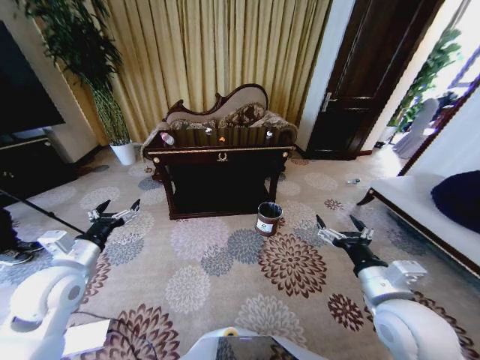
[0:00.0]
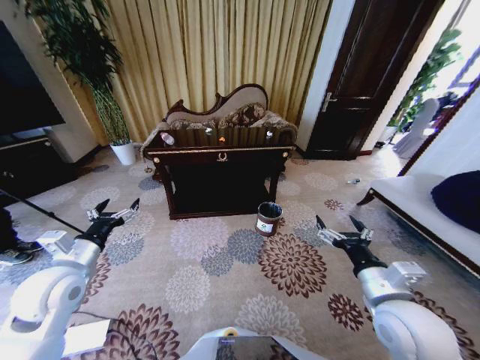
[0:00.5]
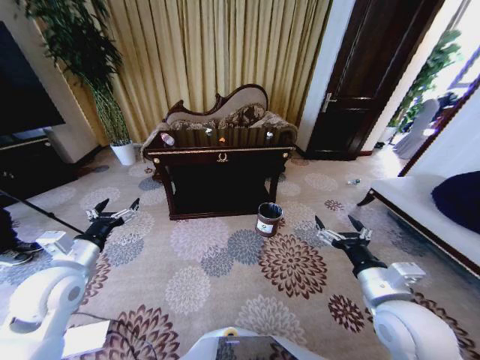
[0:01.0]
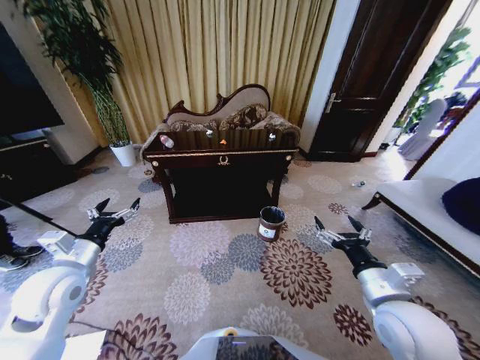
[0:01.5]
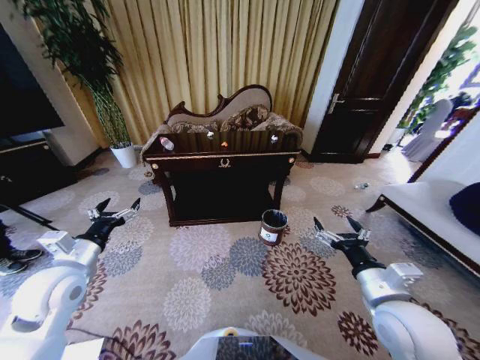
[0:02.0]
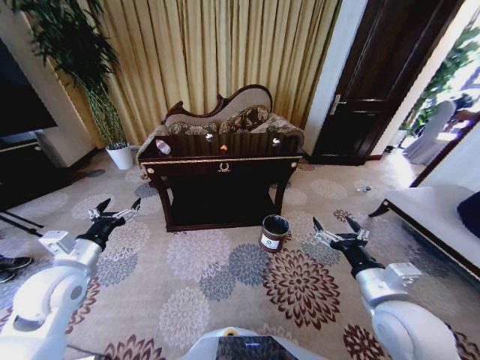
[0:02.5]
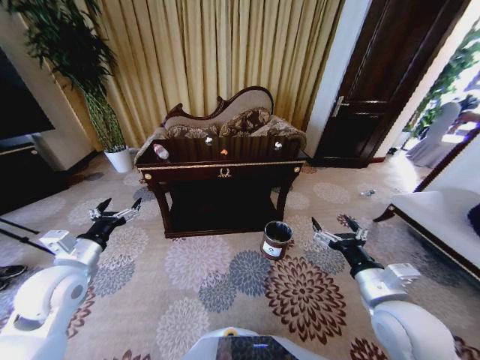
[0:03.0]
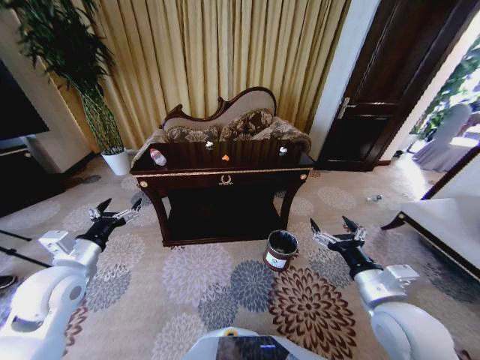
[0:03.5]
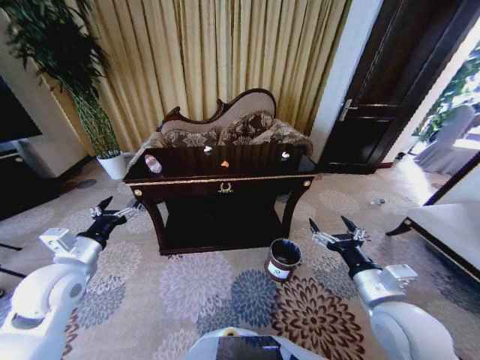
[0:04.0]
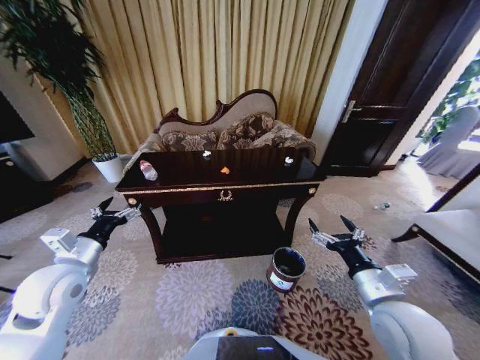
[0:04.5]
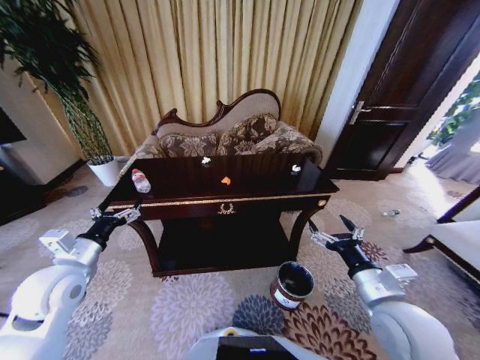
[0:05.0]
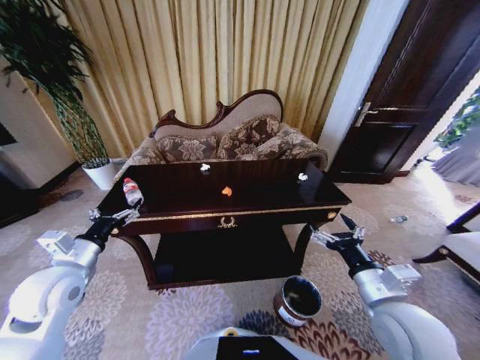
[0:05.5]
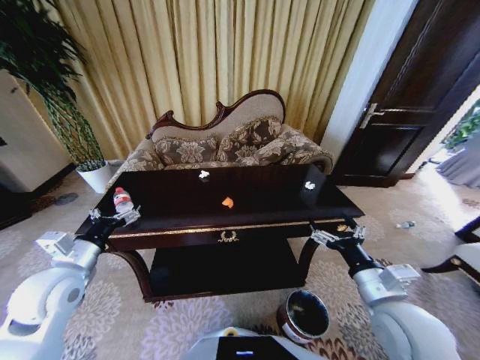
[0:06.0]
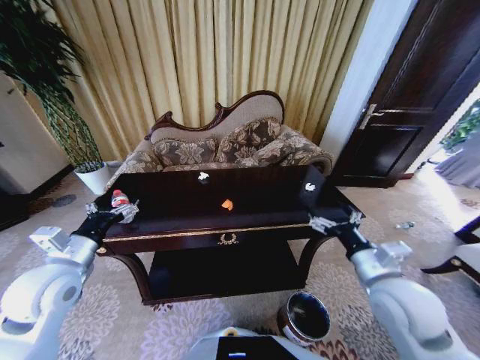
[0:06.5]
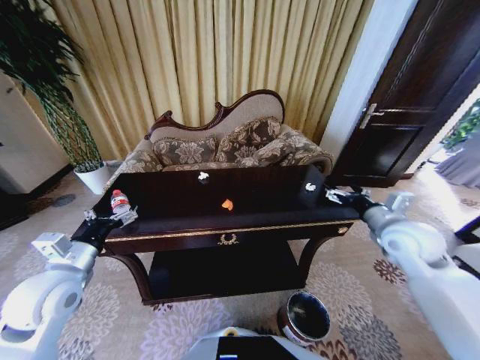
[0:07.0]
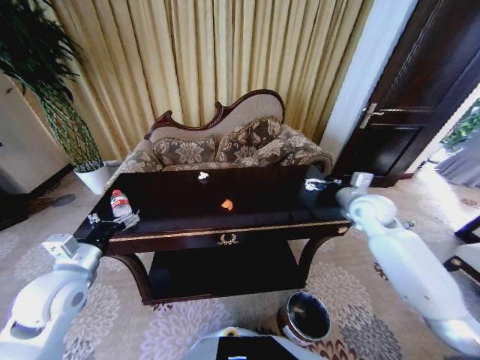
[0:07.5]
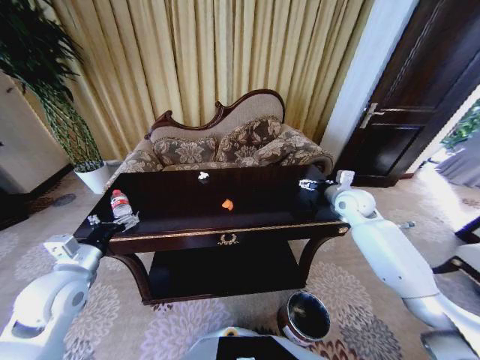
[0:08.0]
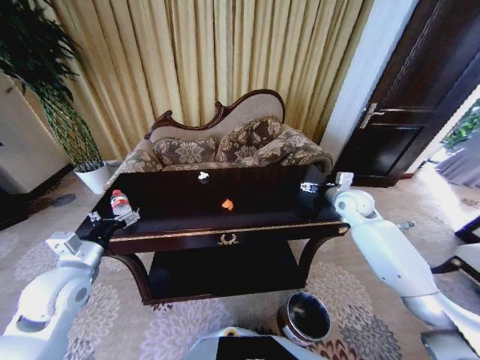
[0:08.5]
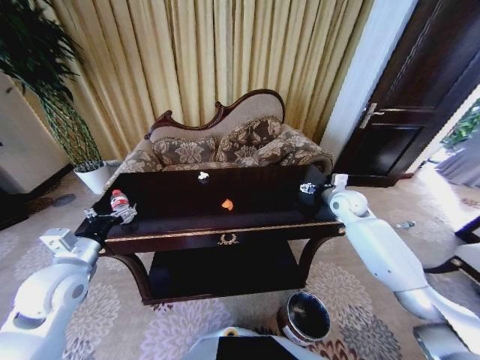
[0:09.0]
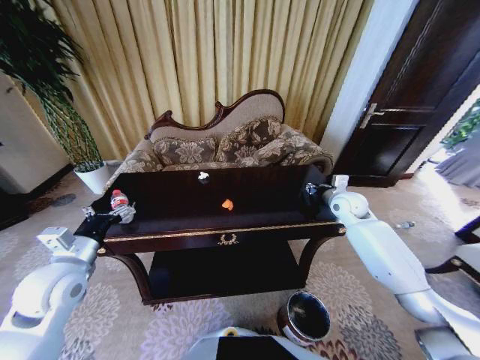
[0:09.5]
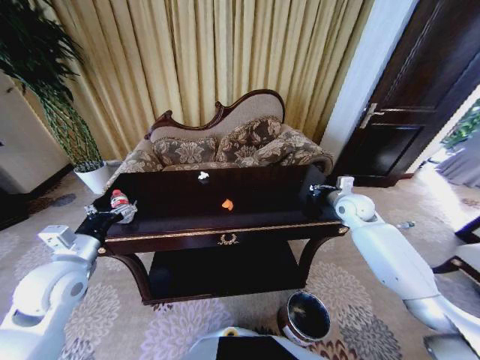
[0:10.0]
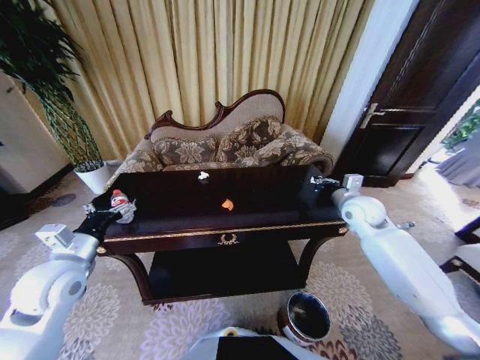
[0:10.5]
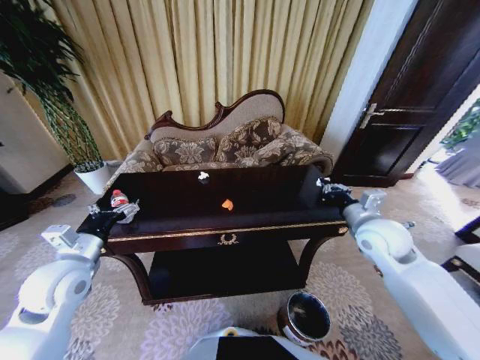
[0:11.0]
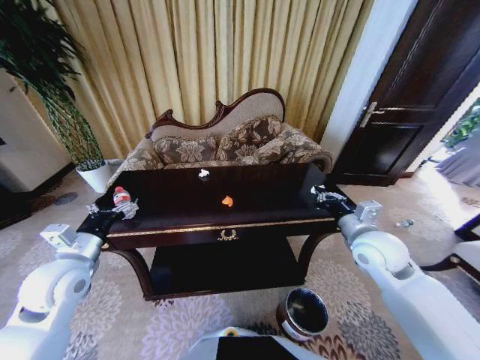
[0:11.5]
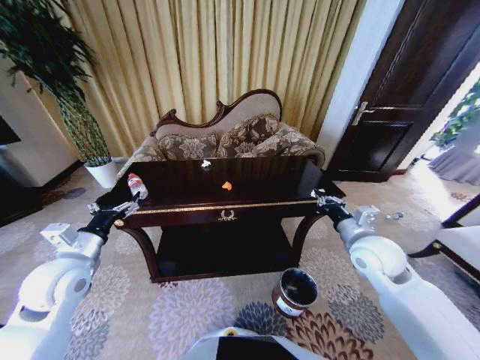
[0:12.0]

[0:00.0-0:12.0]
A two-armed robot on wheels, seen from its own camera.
Task of the whole recording: Move to the front of the table and place the trash on the table into the trash bin.
0:06.0 to 0:08.0: The right gripper travels forward by roughly 30 cm.
0:08.0 to 0:10.0: The right gripper closes.
0:10.0 to 0:12.0: The right gripper heads backward, covering some 15 cm.

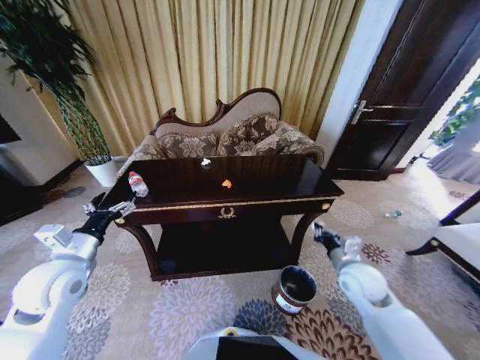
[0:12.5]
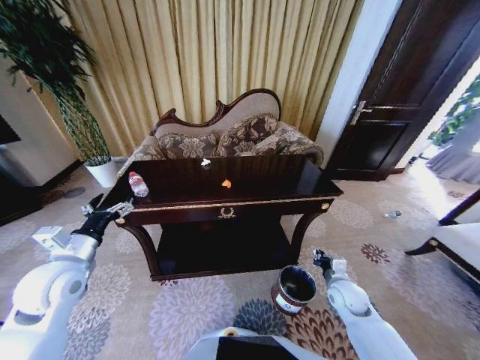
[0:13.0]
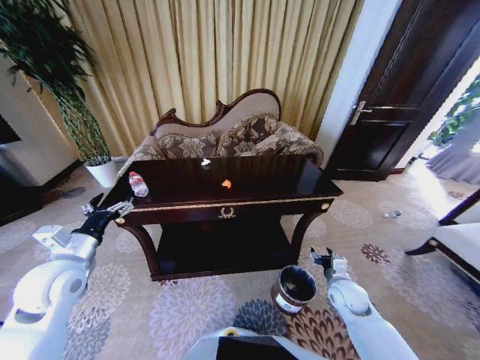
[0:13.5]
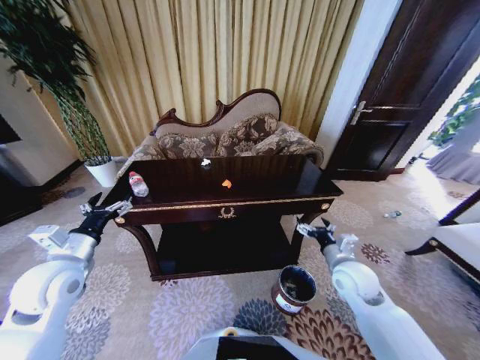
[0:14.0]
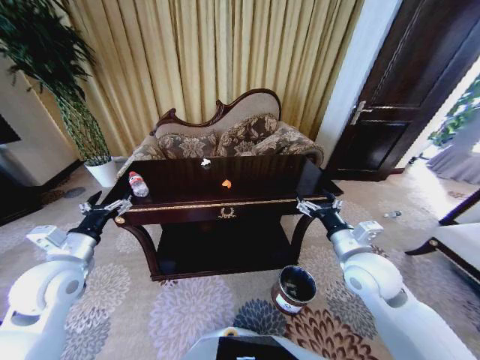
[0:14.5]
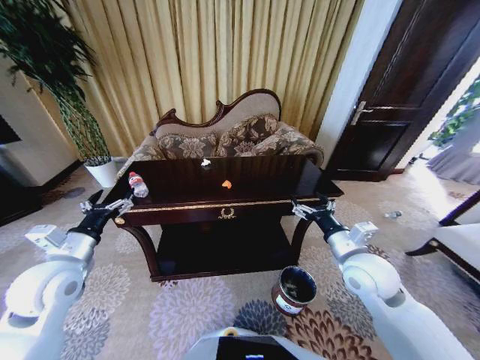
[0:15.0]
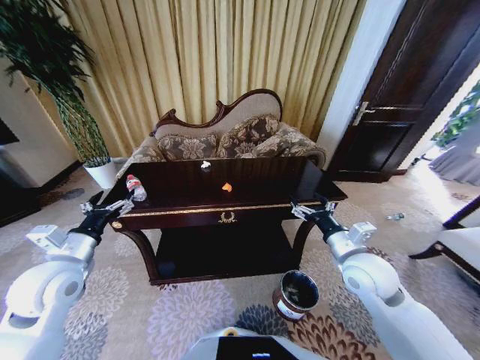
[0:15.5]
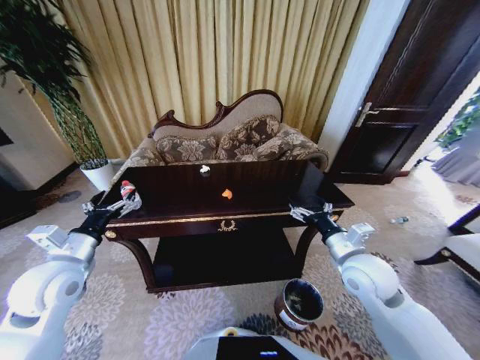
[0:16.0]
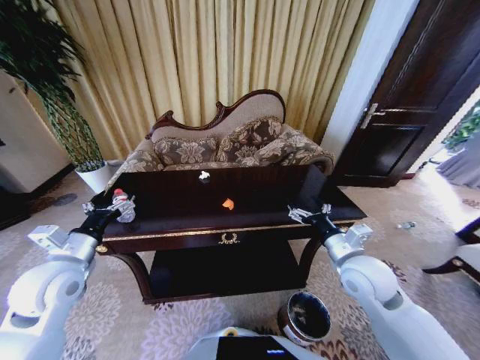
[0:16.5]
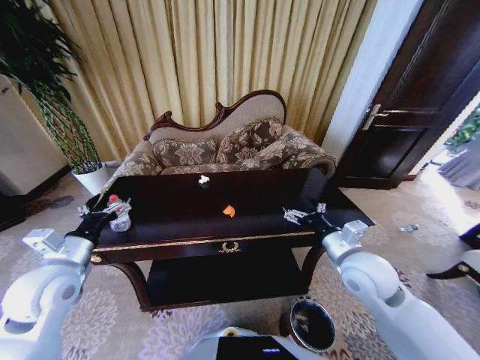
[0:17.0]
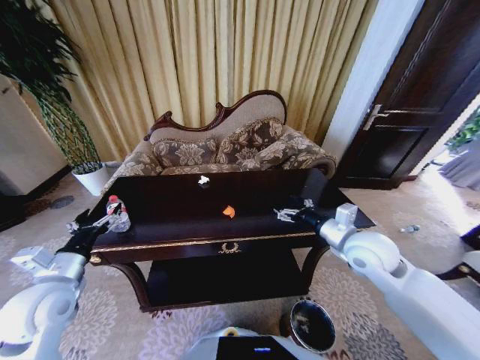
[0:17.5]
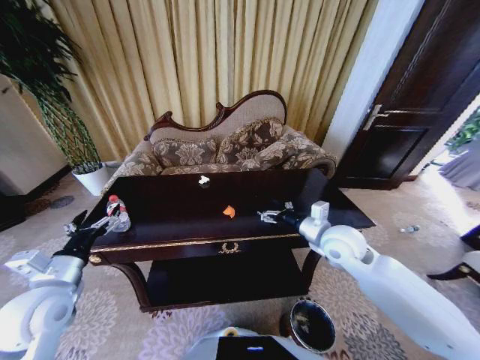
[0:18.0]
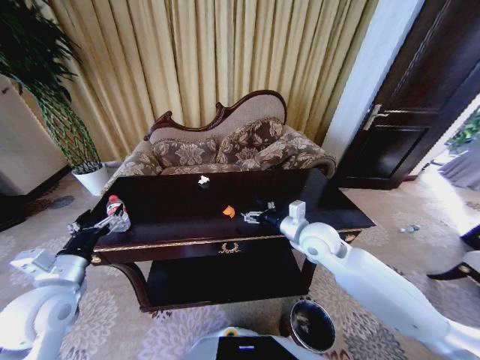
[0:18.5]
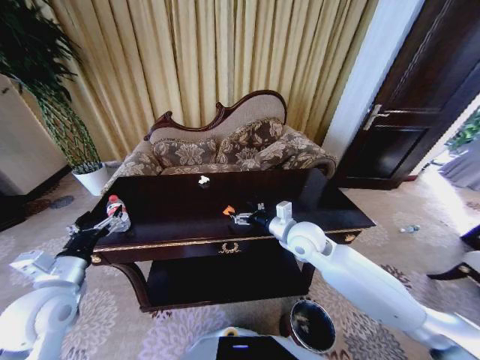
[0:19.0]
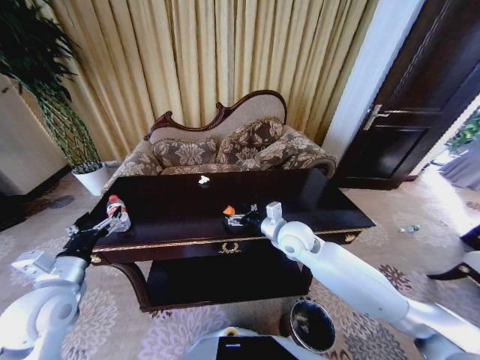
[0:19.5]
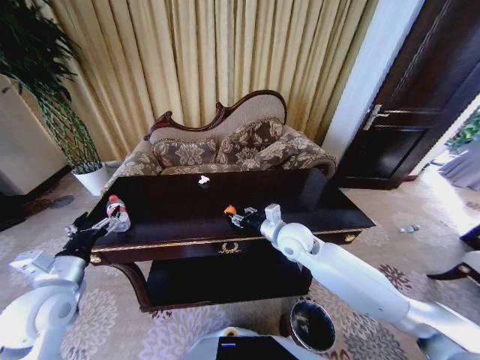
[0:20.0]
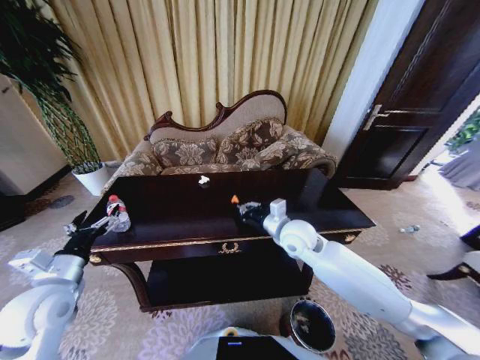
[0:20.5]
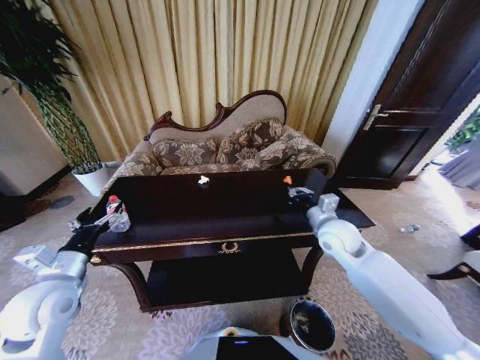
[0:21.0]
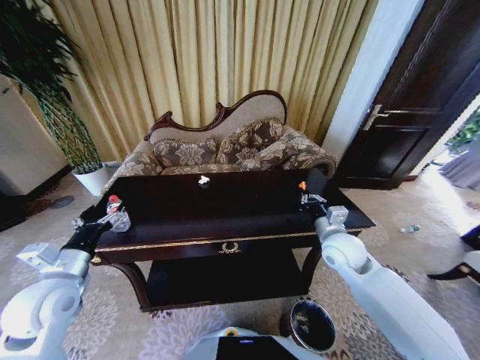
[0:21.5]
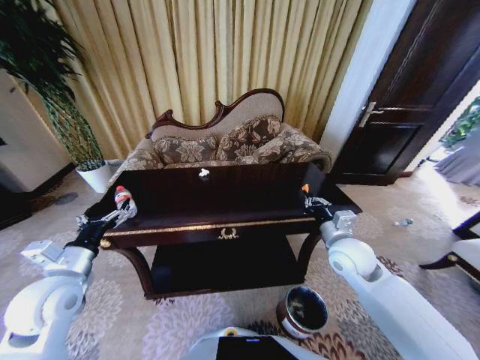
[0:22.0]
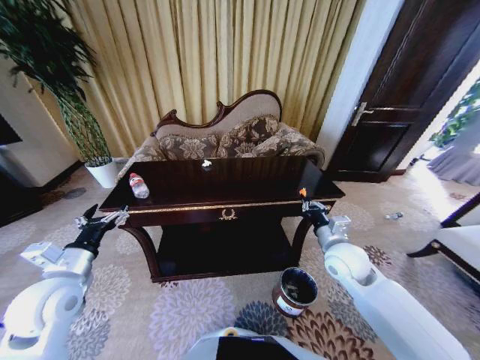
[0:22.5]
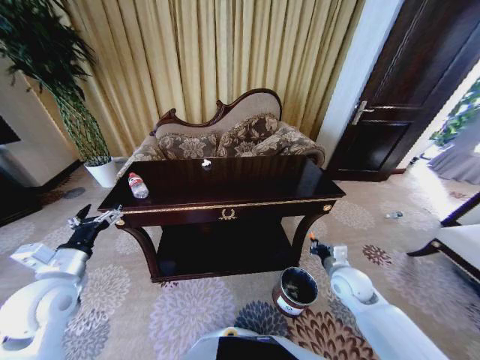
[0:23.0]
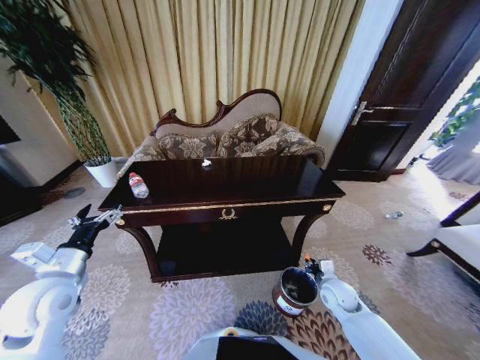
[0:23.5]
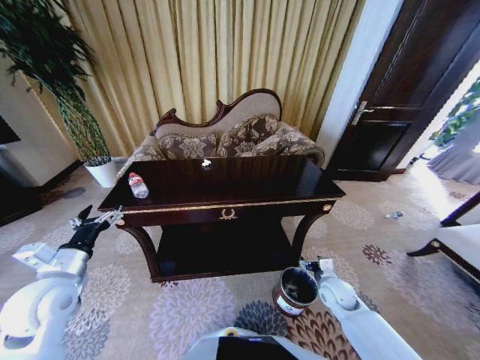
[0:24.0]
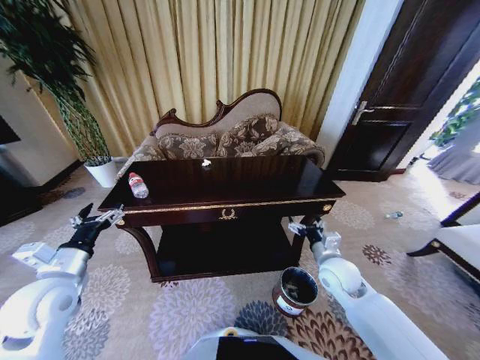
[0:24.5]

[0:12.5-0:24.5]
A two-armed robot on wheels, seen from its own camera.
Task of the whole recording: Move to the front of the table and place the trash on the table into the trash bin.
0:12.5 to 0:14.5: The right gripper goes approximately 10 cm upward, and opens its fingers.
0:16.5 to 0:18.5: The right gripper moves forward and to the left, roughly 10 cm.
0:18.5 to 0:20.5: The right gripper ends up approximately 5 cm from where it was, and closes.
0:20.5 to 0:22.5: The right gripper shifts approximately 15 cm to the right and backward.
0:22.5 to 0:24.5: The right gripper reaches approximately 15 cm downward, then returns, and opens.

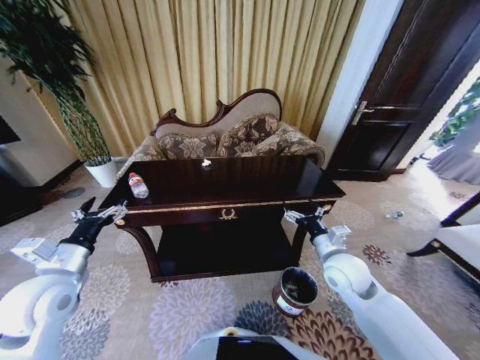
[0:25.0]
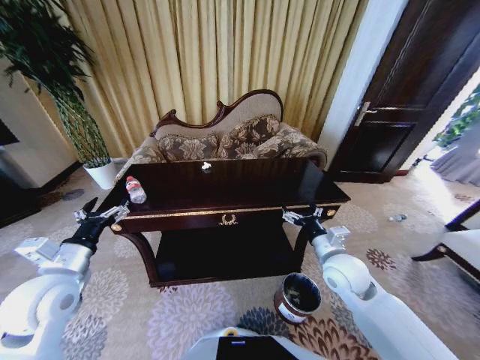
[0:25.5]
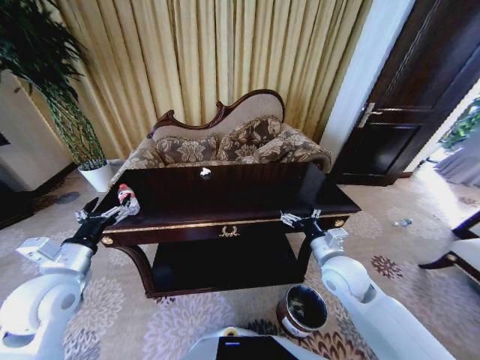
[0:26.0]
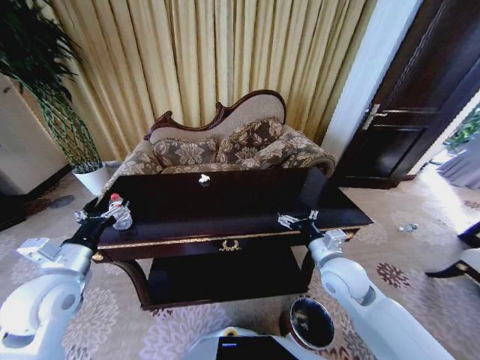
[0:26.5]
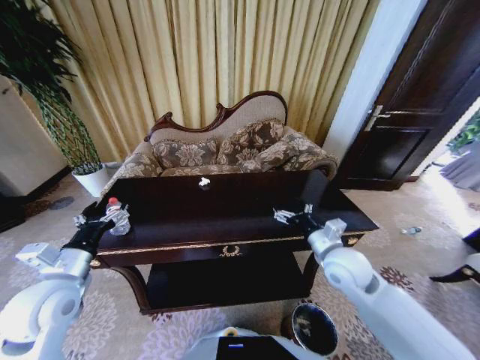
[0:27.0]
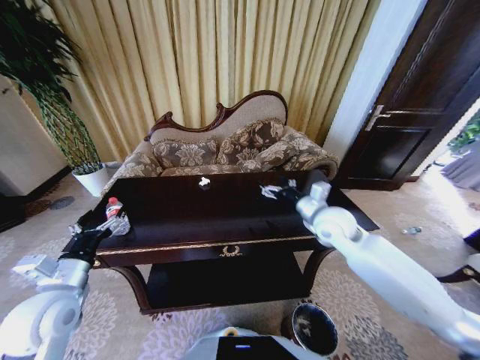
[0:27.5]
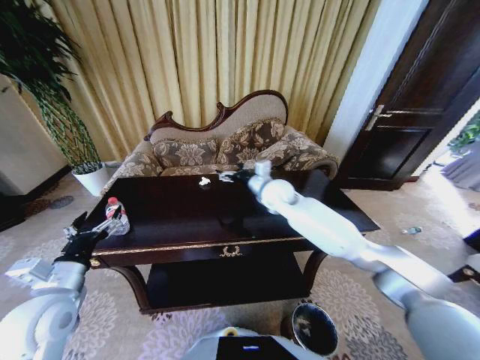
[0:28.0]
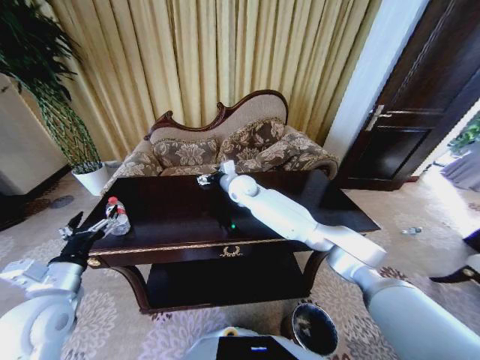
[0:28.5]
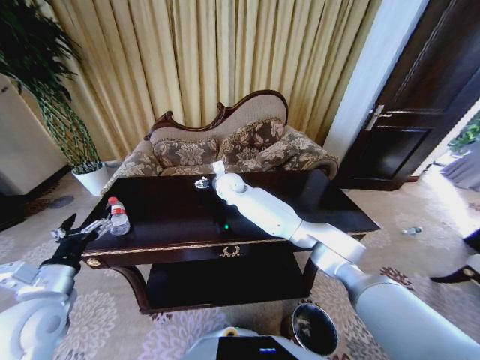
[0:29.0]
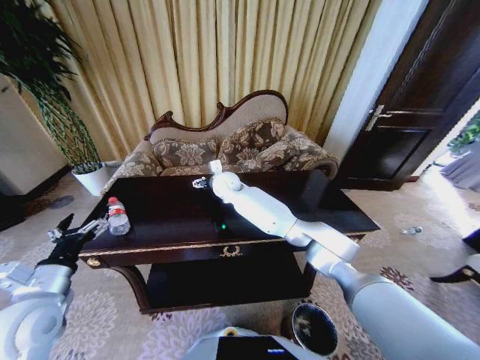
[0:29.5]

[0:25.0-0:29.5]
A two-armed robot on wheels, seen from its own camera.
Task of the whole recording: Move to the front of the table and place the trash on the table into the trash bin.
0:27.0 to 0:29.5: The right gripper is displaced to the left and forward by about 40 cm.
